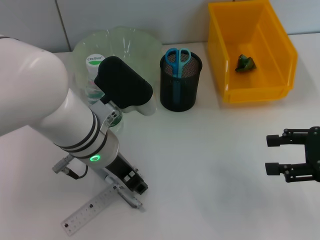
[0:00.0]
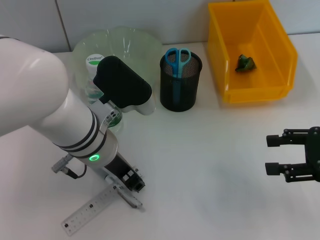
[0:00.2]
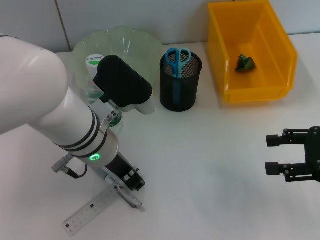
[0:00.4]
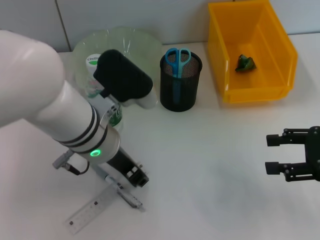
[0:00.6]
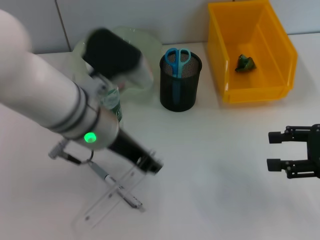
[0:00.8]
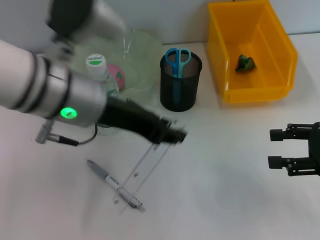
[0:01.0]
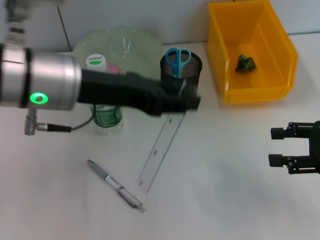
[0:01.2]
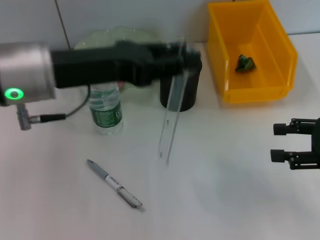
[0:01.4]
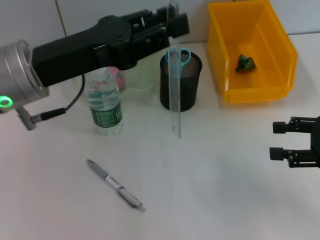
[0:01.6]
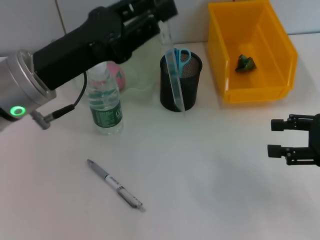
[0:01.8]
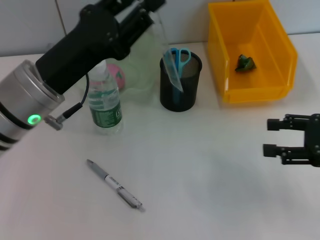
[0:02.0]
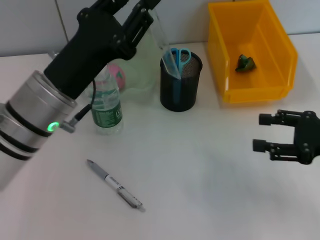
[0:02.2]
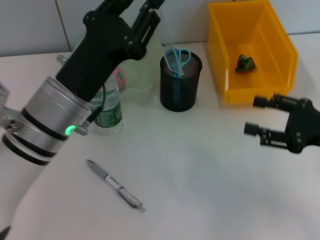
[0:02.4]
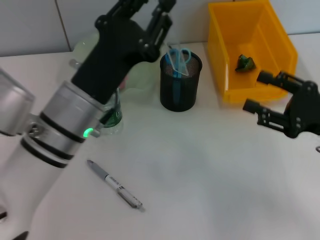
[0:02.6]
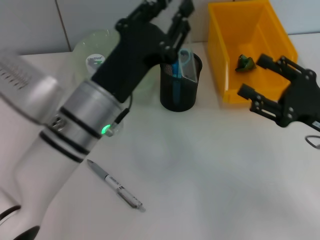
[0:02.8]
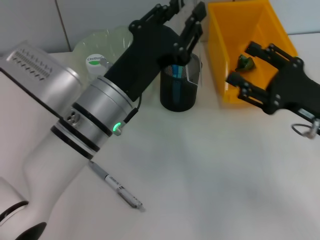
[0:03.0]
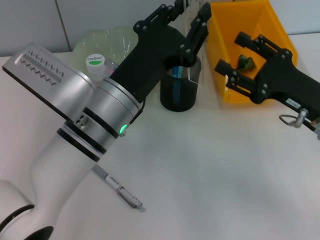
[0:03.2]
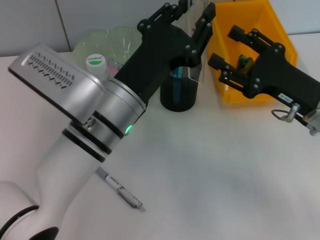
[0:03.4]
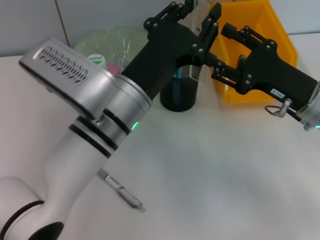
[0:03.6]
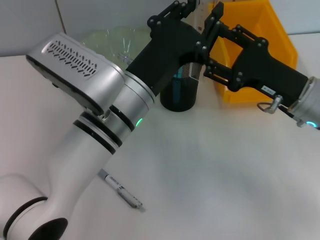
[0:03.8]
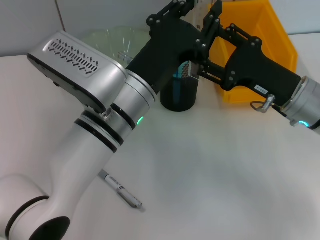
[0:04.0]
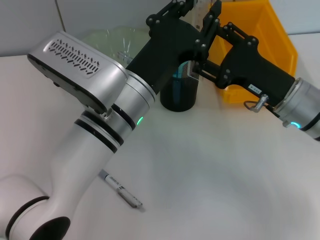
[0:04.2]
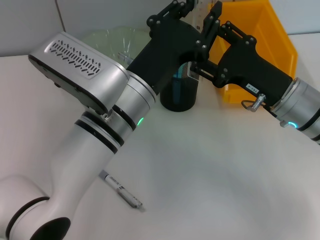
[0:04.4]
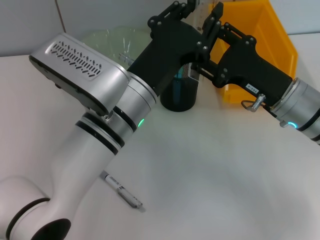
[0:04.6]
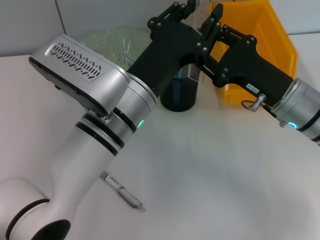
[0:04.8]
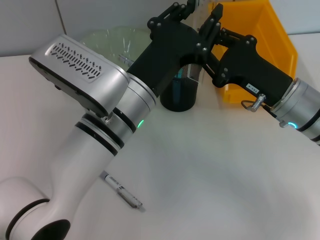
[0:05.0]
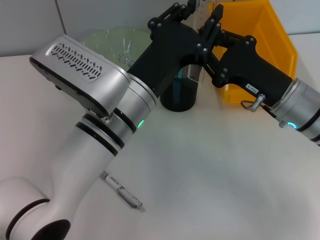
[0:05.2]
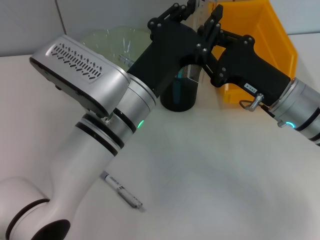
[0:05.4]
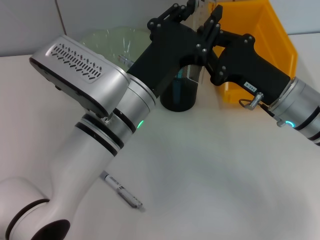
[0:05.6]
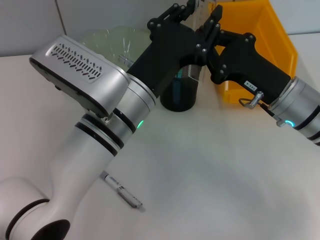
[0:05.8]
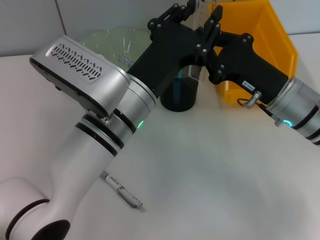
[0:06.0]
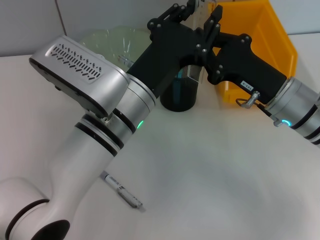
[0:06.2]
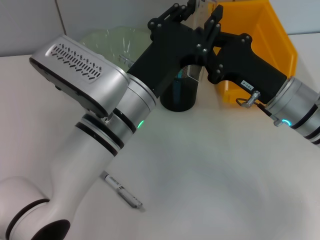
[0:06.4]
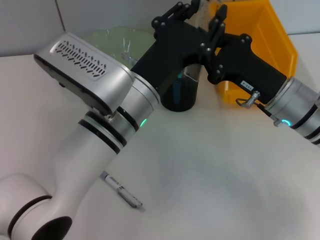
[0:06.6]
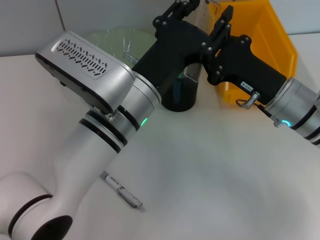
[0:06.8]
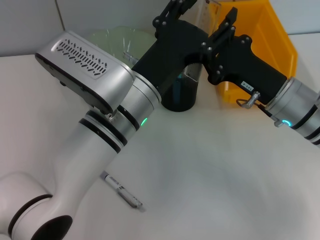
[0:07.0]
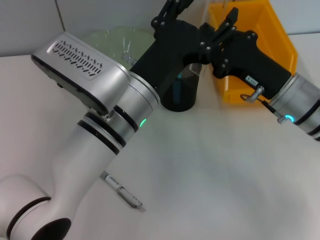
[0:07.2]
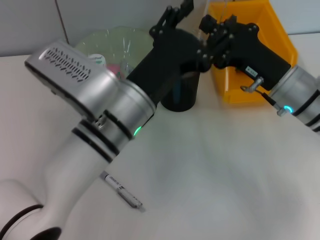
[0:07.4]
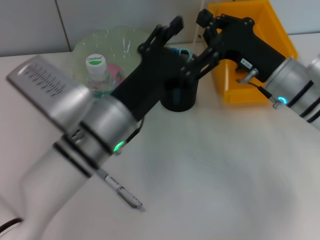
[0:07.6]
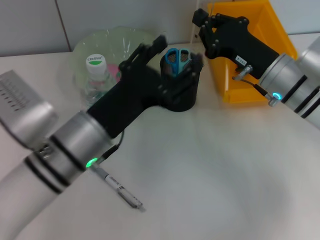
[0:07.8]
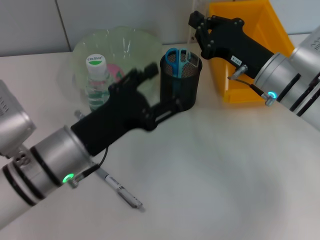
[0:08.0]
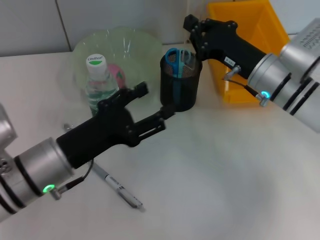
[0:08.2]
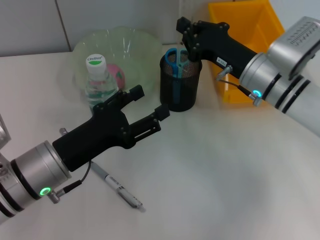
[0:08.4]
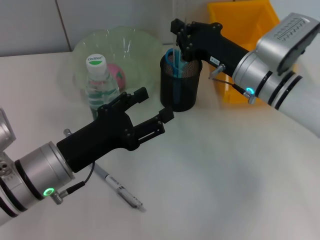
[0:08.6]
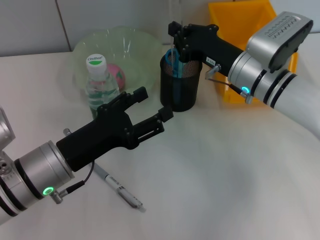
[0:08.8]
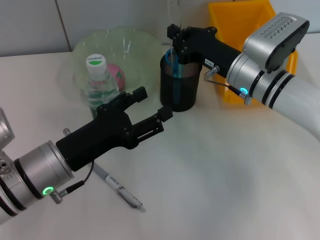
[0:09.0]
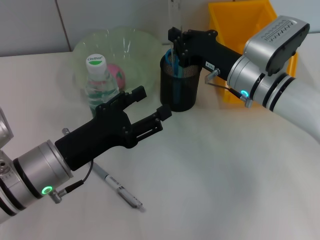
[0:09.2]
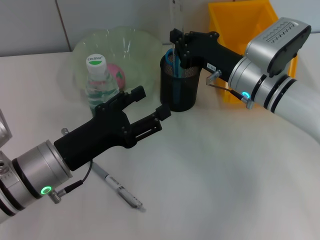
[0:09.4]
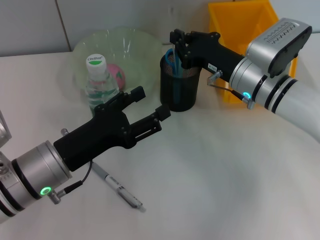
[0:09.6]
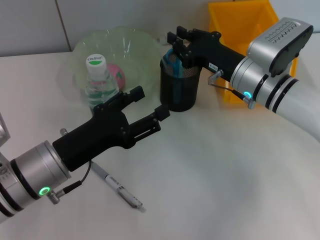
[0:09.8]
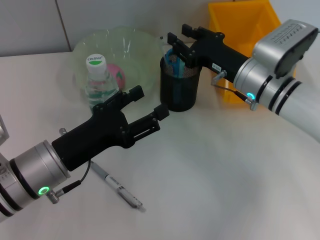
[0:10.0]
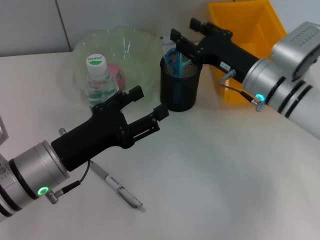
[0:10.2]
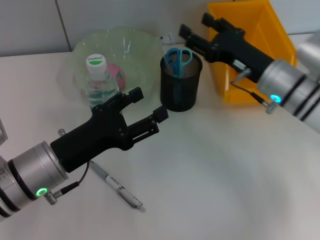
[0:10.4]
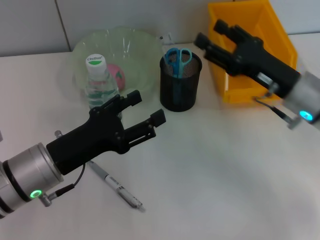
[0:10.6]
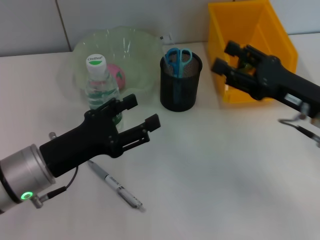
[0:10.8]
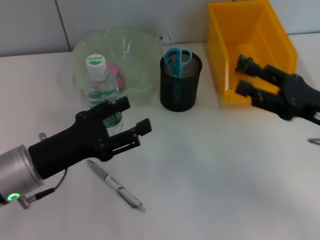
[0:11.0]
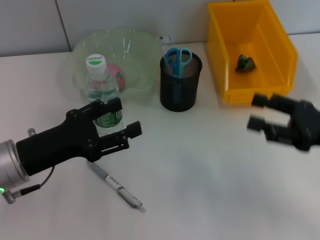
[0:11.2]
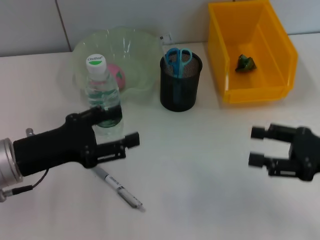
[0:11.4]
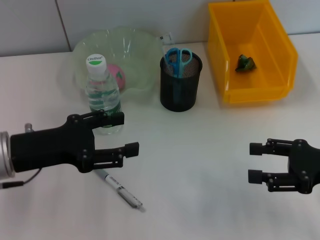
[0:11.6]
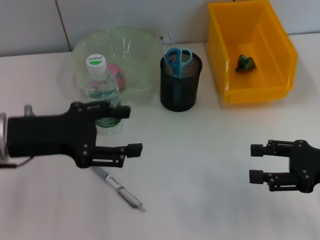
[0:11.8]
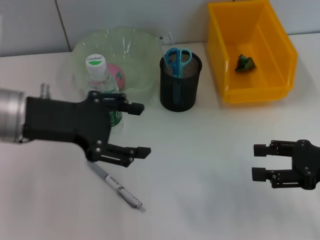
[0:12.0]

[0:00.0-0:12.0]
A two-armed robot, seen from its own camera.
Step, 0:01.0 to 0:07.0: Pass the ruler from the left hand to the right hand.
Step, 0:07.4 to 0:10.0: Place the ruler into the pen holder with the right hand.
0:00.0 to 0:01.6: The left gripper moves to the left and upward, some 10 cm.
0:01.6 to 0:03.0: The right gripper goes roughly 5 cm to the left. Meanwhile the left gripper shifts approximately 10 cm to the right and downward.
0:03.0 to 0:04.4: The right gripper is displaced to the left by some 5 cm.
0:04.4 to 0:06.0: The right gripper closes up.
0:06.0 to 0:07.6: The left gripper opens its fingers.
0:07.6 to 0:09.0: The right gripper shifts by approximately 5 cm; the left gripper is displaced to the left by some 10 cm.
0:09.0 to 0:10.4: The right gripper opens up.
0:10.4 to 0:12.0: The right gripper moves to the right and backward, roughly 15 cm, while the left gripper travels upward by roughly 10 cm.

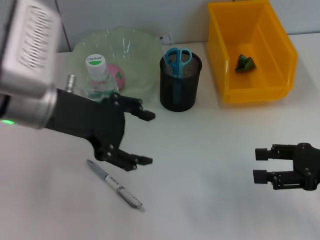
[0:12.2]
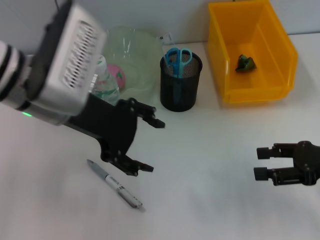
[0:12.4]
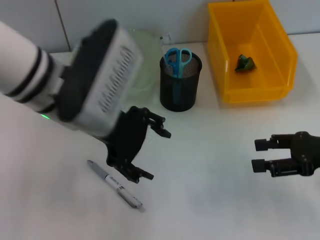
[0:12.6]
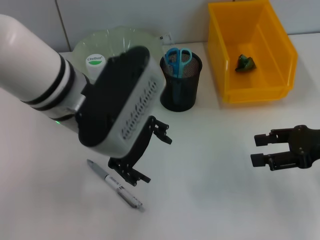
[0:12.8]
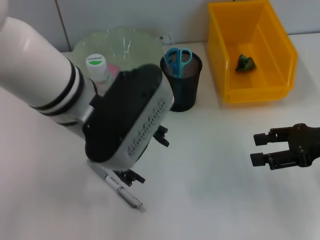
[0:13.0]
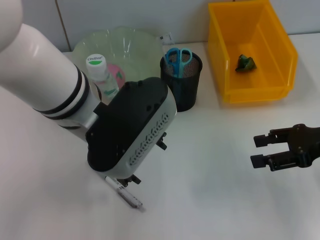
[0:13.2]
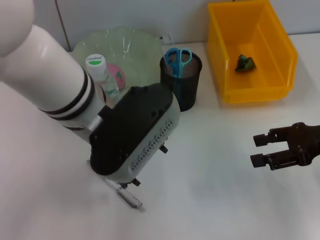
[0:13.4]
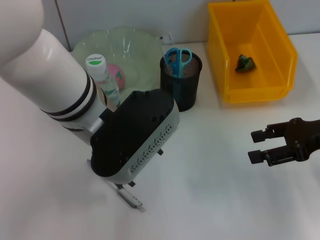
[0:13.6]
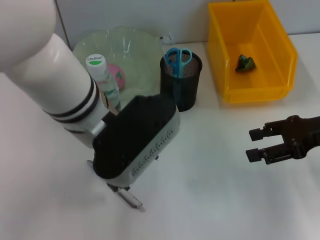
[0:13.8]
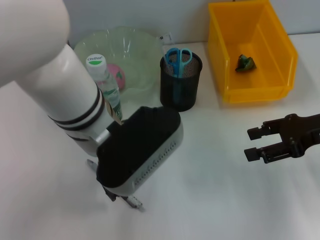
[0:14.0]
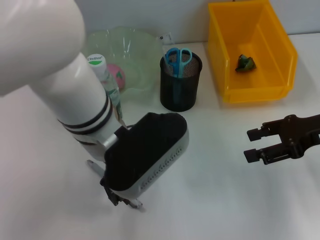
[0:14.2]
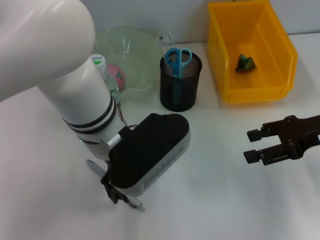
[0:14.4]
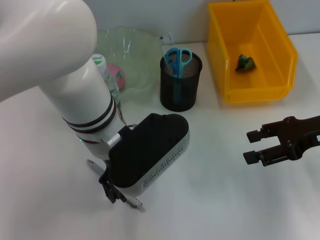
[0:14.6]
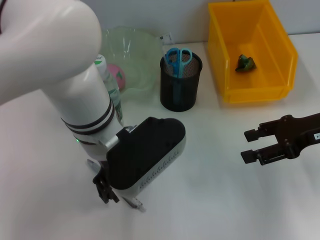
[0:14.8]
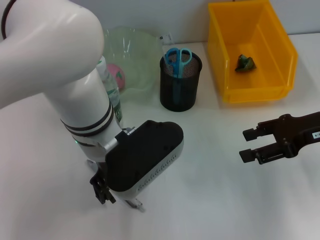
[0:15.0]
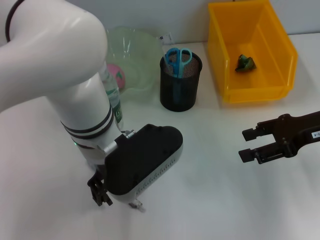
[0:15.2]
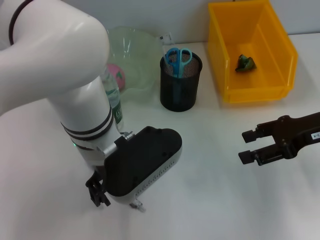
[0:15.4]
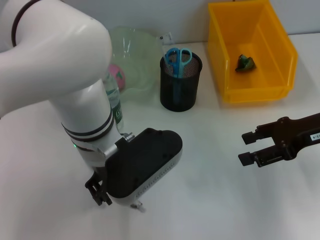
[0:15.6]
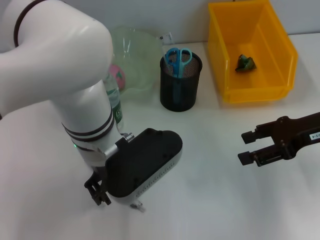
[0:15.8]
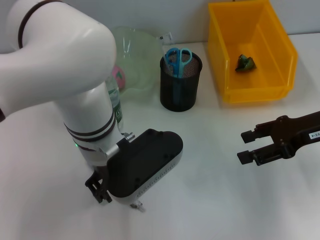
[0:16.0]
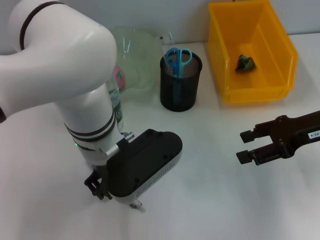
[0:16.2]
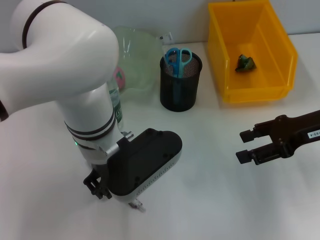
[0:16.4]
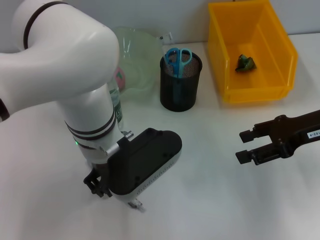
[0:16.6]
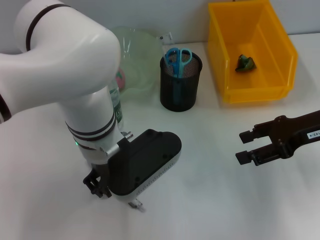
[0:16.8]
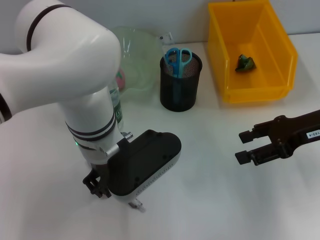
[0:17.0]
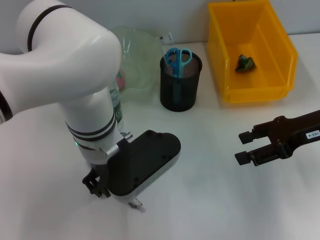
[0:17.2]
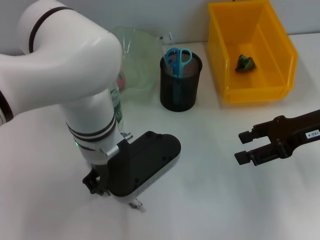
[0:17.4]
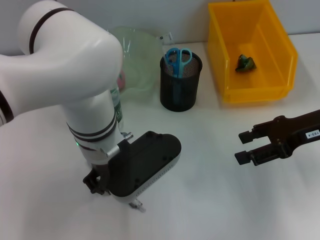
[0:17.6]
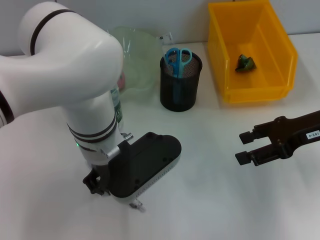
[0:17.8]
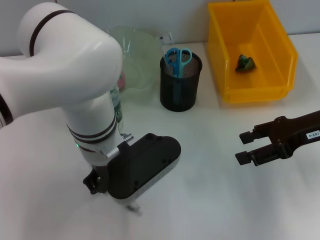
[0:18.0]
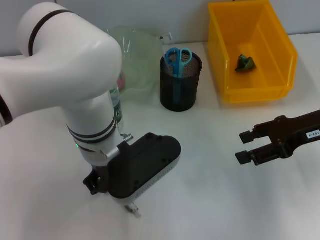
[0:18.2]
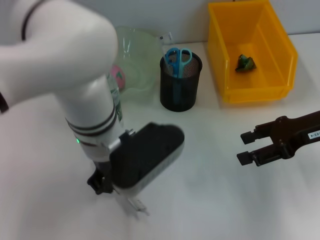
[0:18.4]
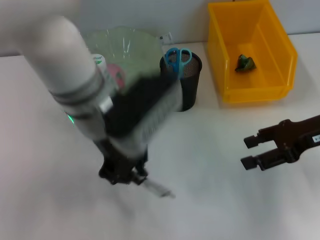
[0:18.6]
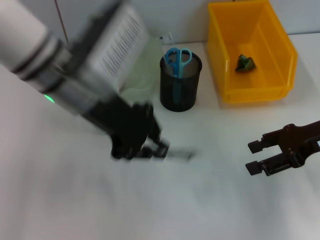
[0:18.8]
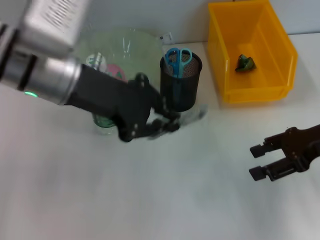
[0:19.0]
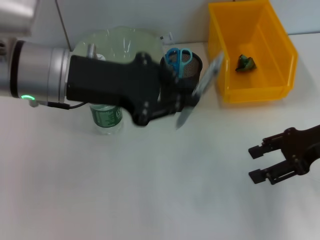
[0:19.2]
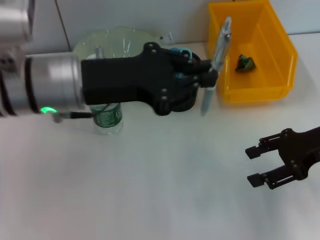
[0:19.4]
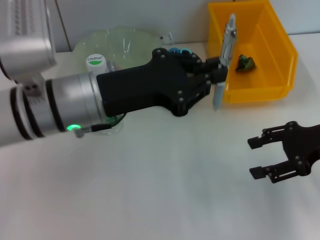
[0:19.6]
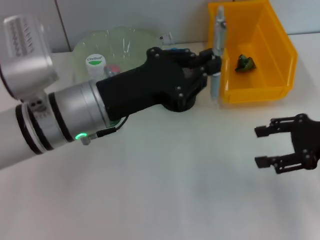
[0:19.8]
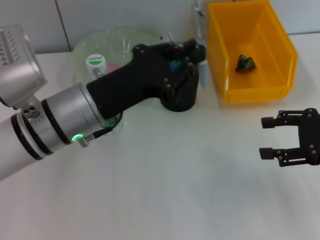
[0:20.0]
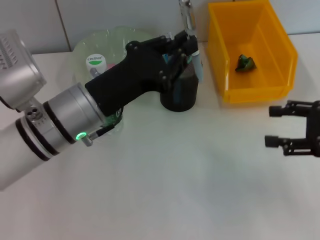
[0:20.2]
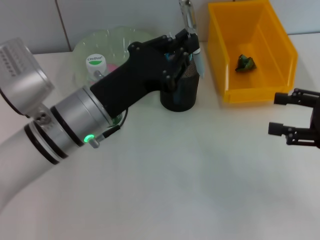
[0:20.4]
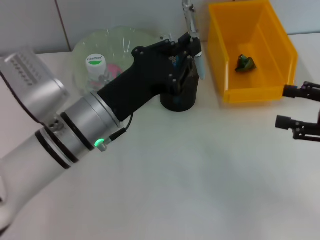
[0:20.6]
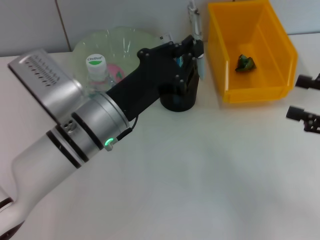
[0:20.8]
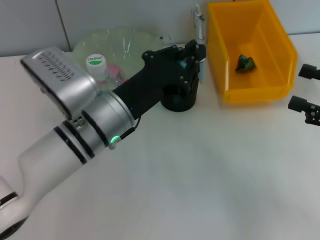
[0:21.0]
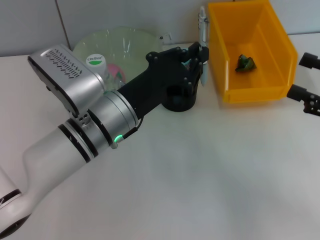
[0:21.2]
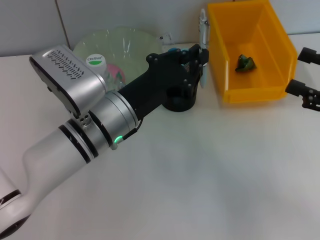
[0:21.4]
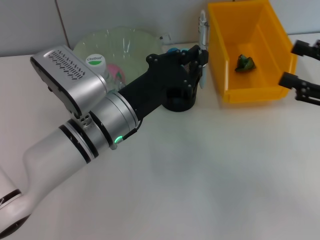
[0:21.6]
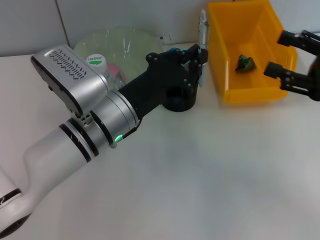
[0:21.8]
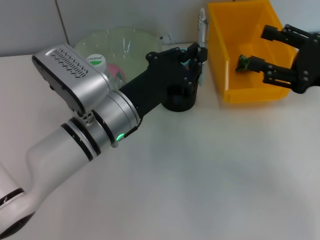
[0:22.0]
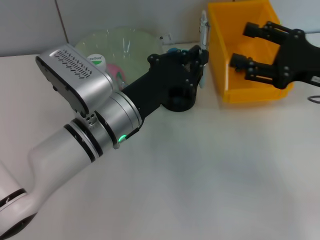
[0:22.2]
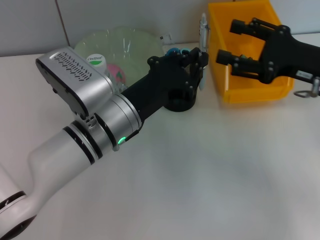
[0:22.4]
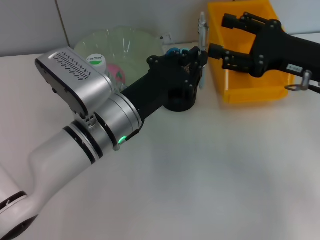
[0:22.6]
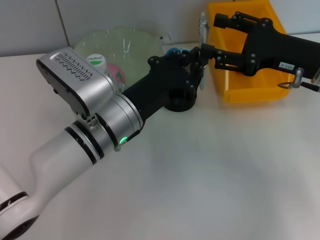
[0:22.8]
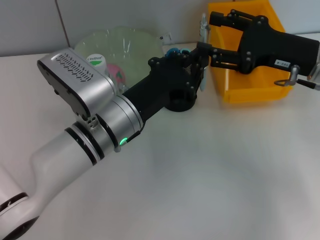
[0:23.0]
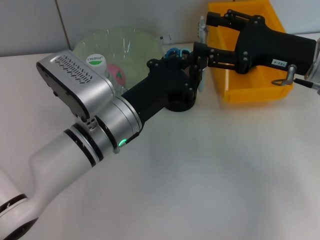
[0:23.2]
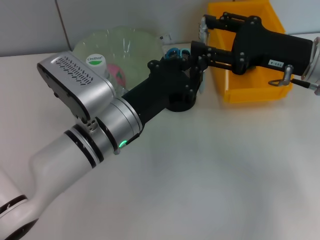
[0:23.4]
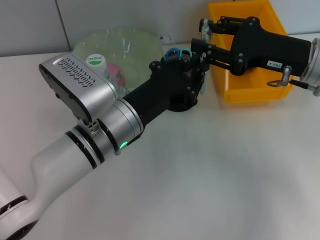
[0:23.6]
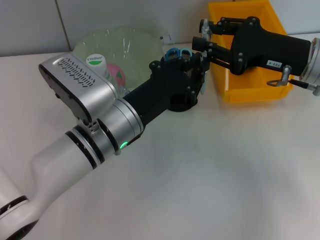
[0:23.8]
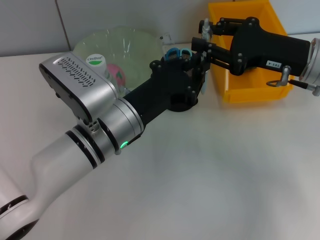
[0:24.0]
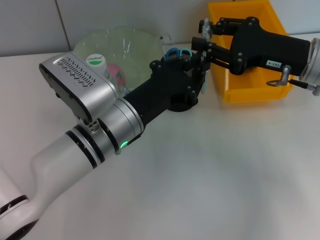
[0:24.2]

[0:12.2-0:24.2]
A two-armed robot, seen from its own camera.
Step, 0:12.2 to 0:18.4: Grab the gray spring-action pen with the left hand.
0:12.2 to 0:13.8: The right gripper shifts some 5 cm forward. Meanwhile the left gripper travels to the right by some 10 cm.
0:13.8 to 0:15.2: The grippers make only small movements.
0:15.2 to 0:16.6: The left gripper closes up.
0:16.6 to 0:18.2: Both grippers stay about where they are.
0:18.2 to 0:19.8: The left gripper is displaced to the left by approximately 5 cm.
0:19.8 to 0:21.2: The left gripper ends up about 5 cm from where it was.
0:21.2 to 0:22.6: The right gripper heads forward and to the left, covering some 10 cm.
0:22.6 to 0:24.2: The right gripper closes its fingers.
